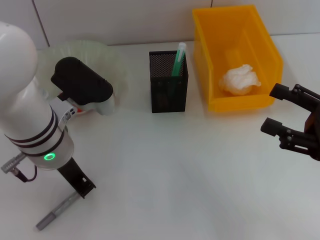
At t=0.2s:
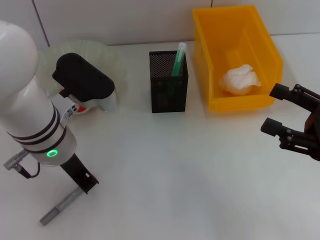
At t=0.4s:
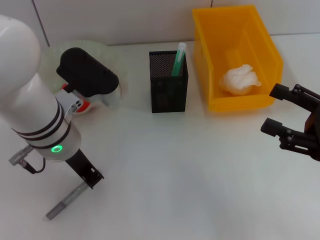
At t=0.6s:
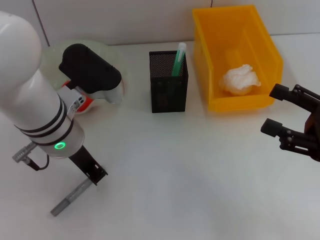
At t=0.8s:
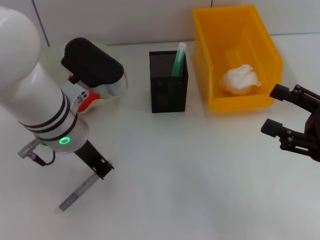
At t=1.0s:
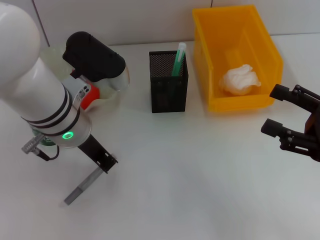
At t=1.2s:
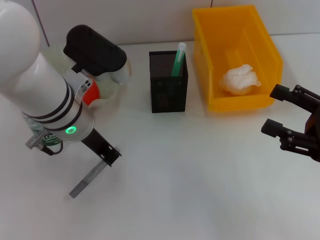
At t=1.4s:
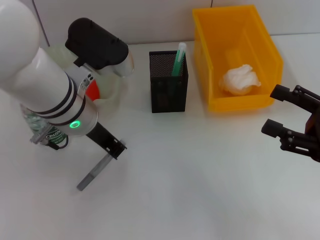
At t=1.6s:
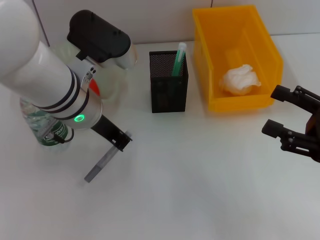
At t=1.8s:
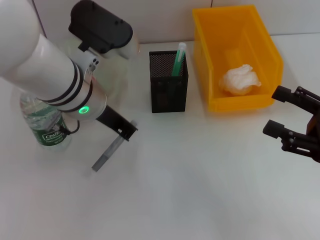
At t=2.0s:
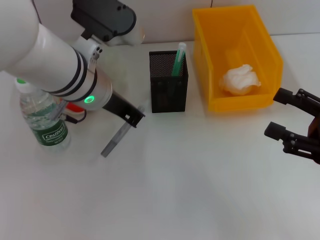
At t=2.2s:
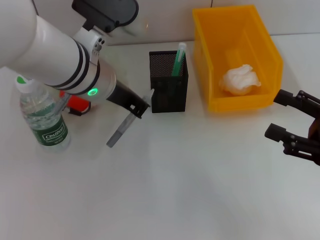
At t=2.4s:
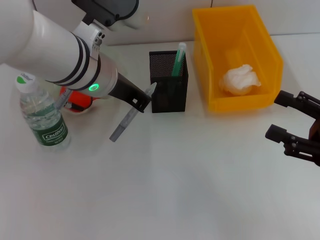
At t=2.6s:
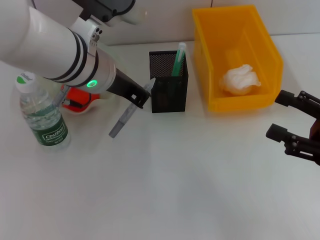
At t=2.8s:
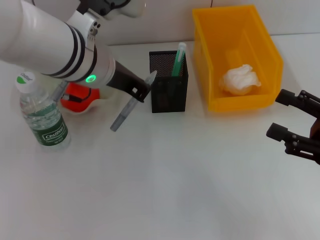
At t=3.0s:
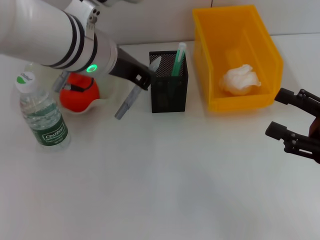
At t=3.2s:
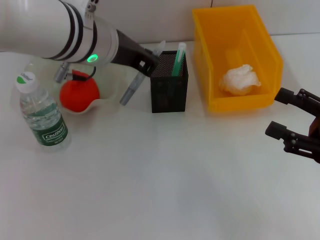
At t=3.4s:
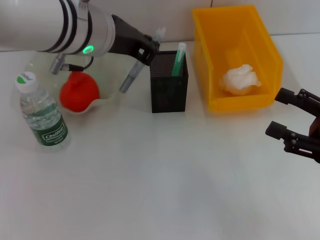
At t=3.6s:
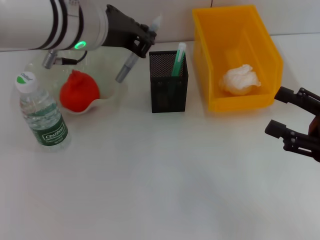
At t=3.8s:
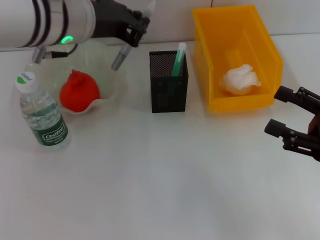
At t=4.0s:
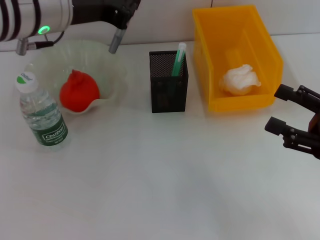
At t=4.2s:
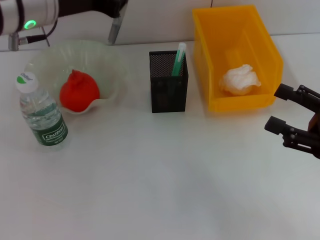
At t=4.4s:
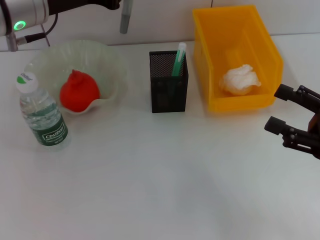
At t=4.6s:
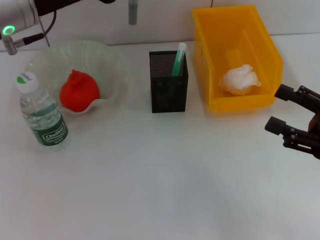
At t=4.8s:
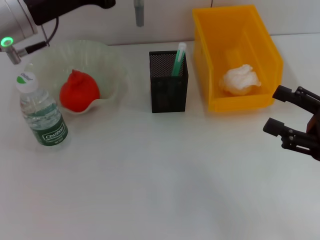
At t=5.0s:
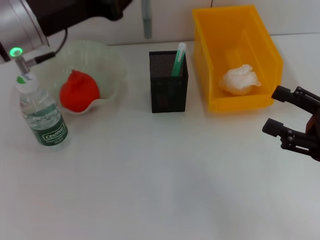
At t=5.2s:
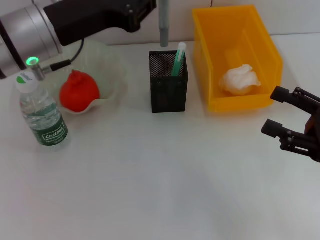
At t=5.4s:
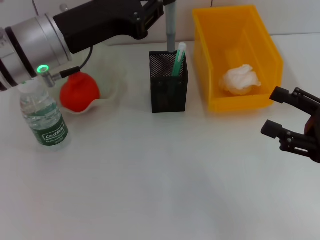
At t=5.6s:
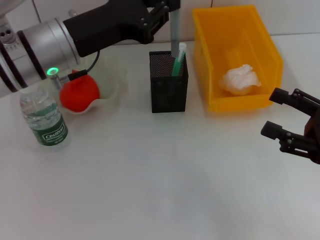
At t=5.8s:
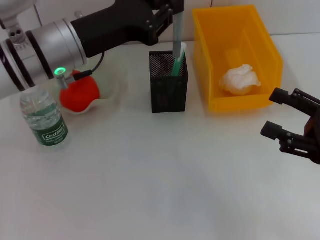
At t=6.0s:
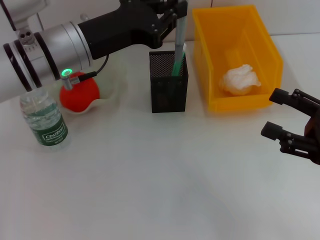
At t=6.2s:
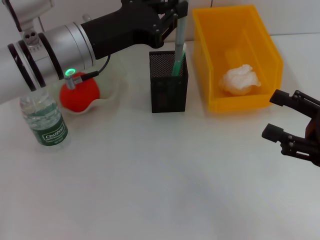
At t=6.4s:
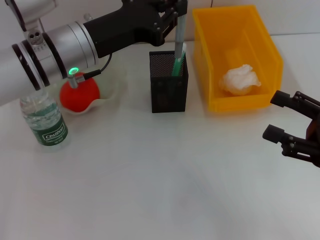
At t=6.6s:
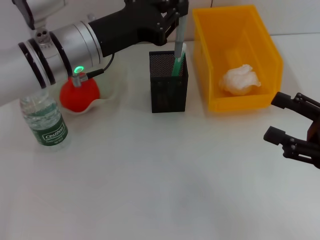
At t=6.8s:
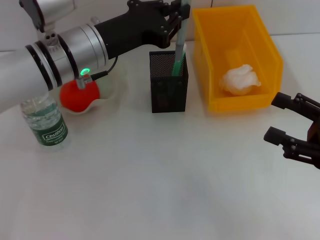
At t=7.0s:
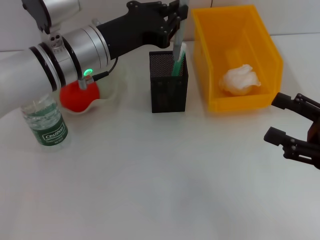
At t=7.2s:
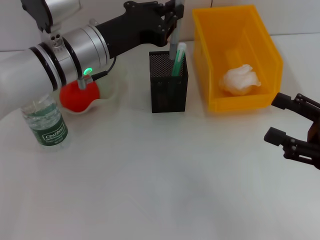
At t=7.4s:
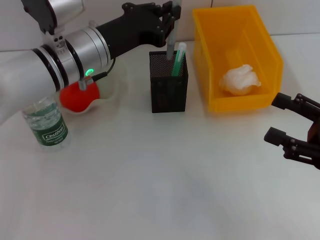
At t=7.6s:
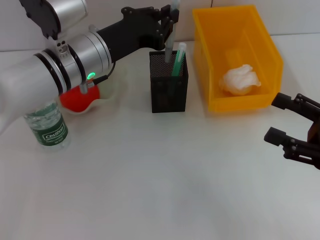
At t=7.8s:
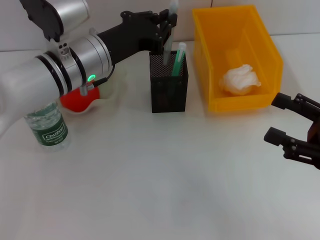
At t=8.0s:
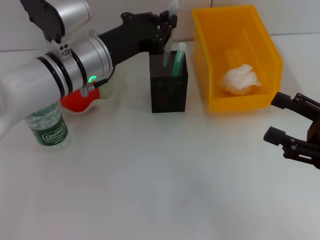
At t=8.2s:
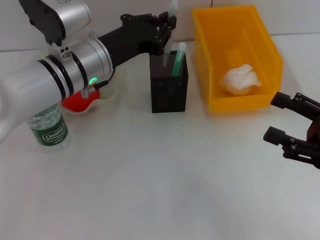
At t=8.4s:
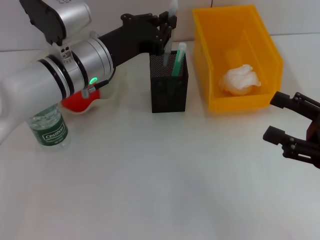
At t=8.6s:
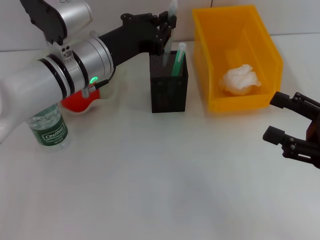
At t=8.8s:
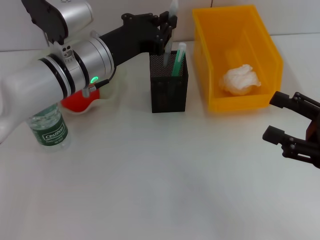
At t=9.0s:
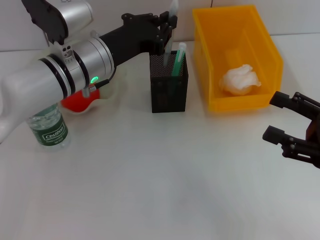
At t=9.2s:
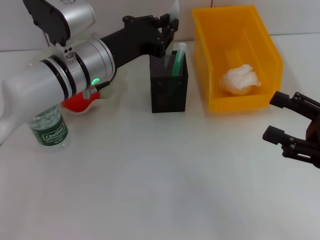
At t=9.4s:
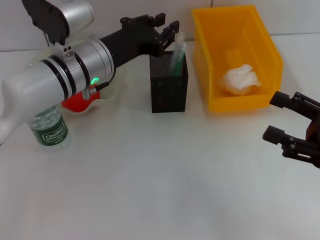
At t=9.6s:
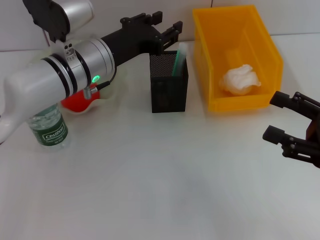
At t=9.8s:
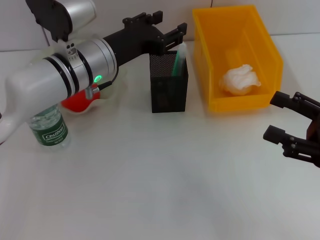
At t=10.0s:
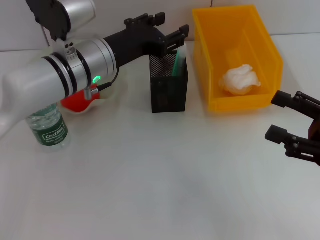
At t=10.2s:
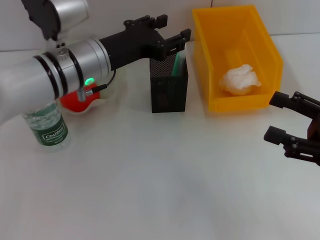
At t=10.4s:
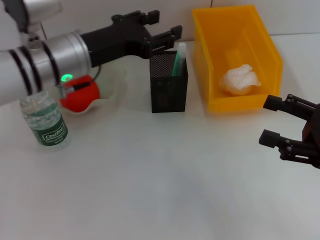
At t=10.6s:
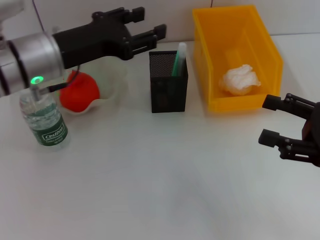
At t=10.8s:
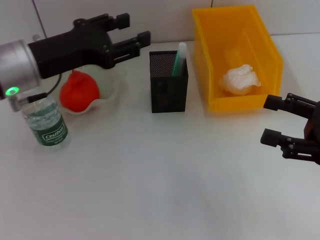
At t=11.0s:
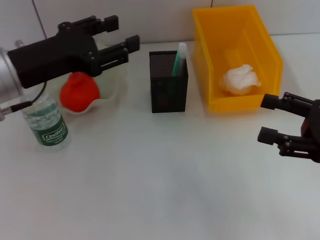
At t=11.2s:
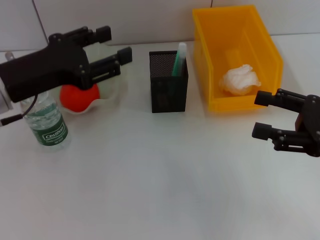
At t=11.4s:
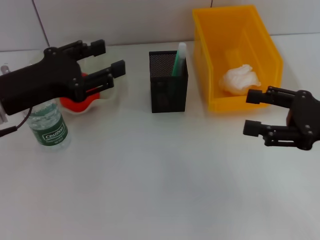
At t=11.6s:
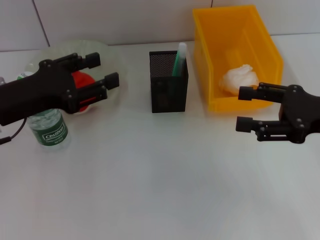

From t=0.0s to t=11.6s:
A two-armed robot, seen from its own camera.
Step, from t=0.6s to t=9.4s: Place the gray glue into the pen holder with the left hand.
From t=0.0s to t=1.4s: The grippers move only a little.
From t=1.4s to t=2.8s: The left gripper shifts by about 5 cm.
From t=2.8s to t=4.4s: The left gripper travels to the left by some 10 cm.
From t=4.4s to t=5.8s: The left gripper shifts approximately 5 cm downward.
From t=5.8s to t=8.8s: The grippers move only a little.
From t=8.8s to t=10.2s: The left gripper opens its fingers.
From t=10.2s to t=11.6s: The right gripper travels forward by about 5 cm; the left gripper shifts approximately 15 cm to the left and backward.

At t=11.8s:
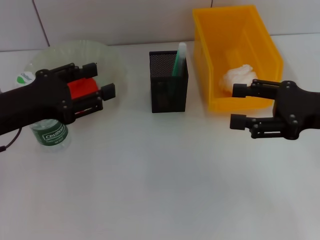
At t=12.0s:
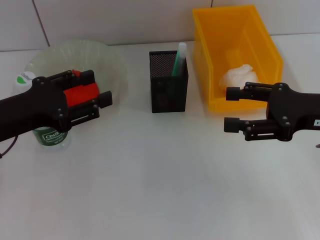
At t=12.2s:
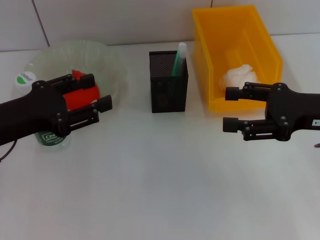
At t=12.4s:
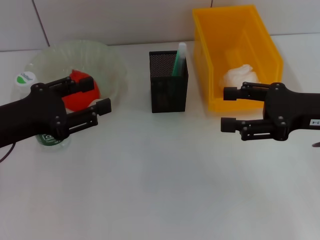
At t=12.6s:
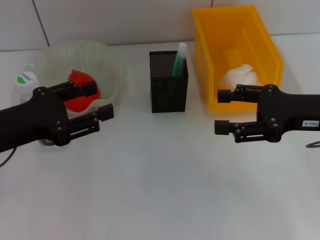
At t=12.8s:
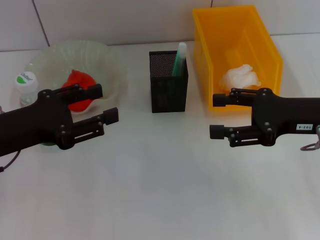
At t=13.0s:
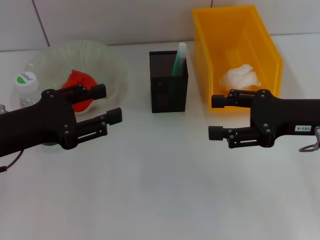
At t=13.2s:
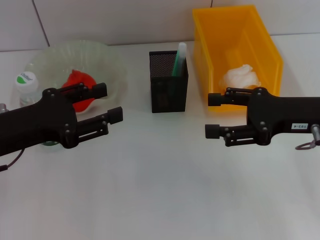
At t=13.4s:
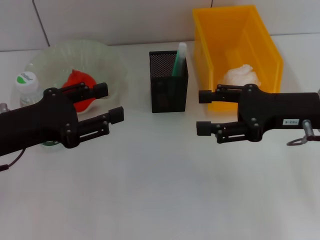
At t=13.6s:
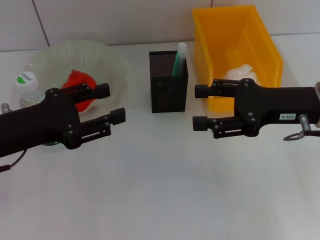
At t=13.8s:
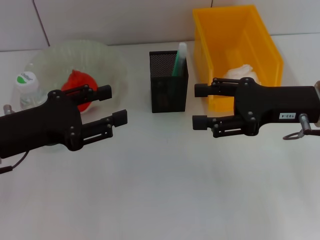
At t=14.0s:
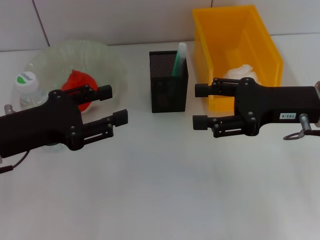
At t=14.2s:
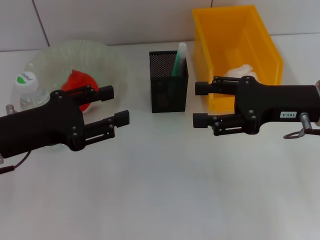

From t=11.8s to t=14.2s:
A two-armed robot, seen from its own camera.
From t=11.8s to t=14.2s: The grippers stay close to where they were, moving slightly.
